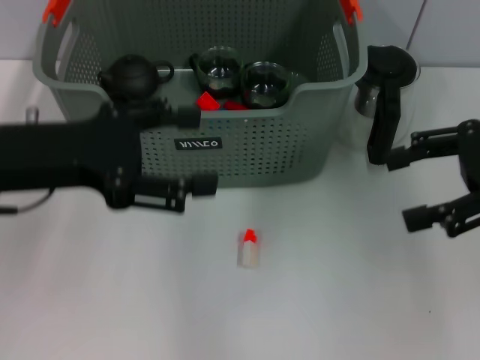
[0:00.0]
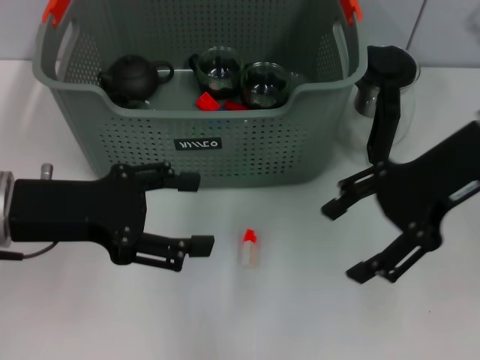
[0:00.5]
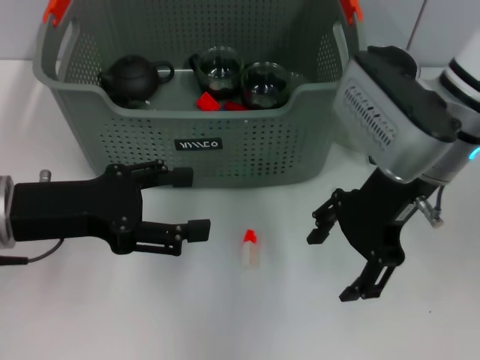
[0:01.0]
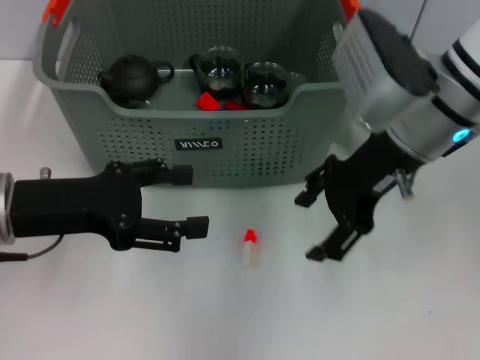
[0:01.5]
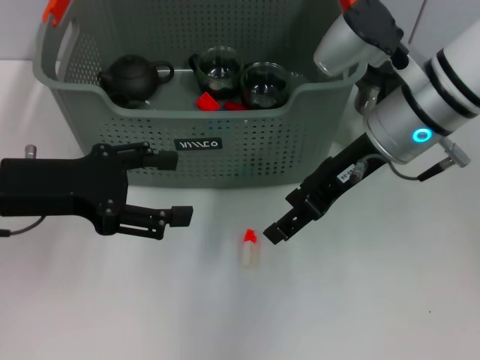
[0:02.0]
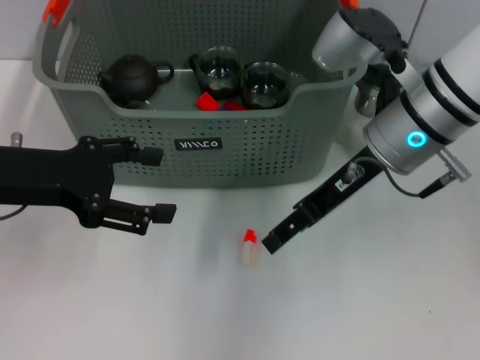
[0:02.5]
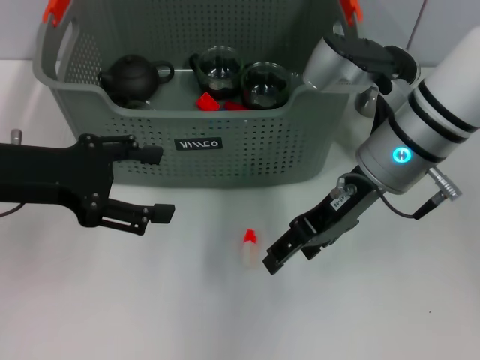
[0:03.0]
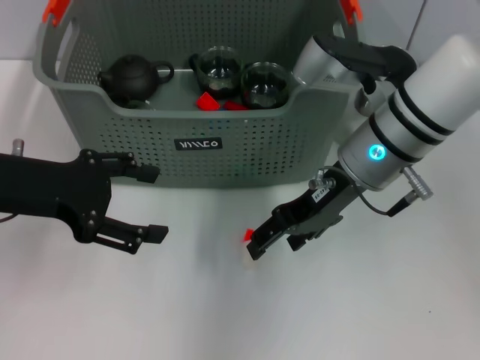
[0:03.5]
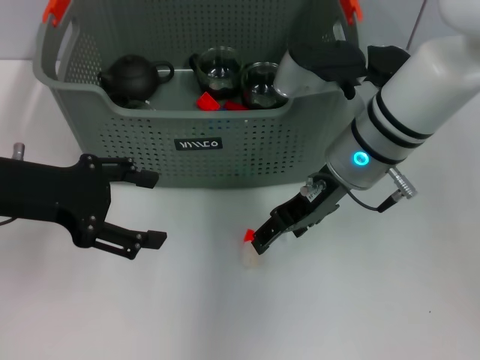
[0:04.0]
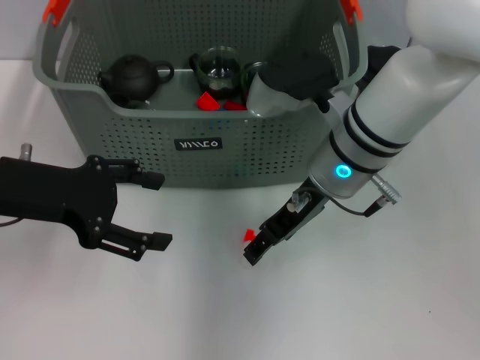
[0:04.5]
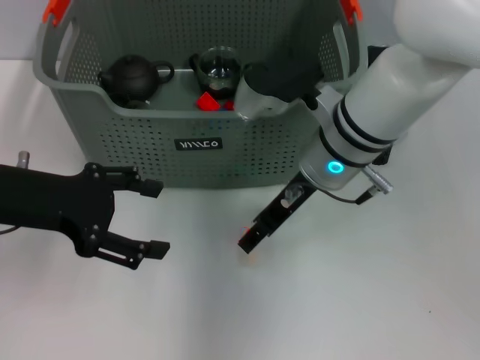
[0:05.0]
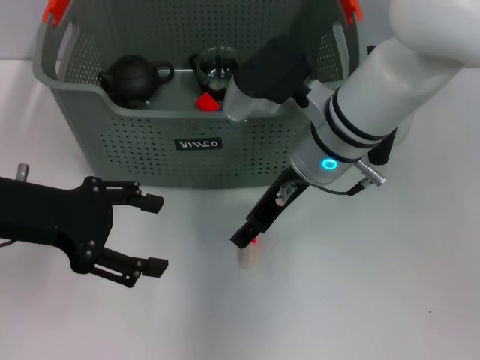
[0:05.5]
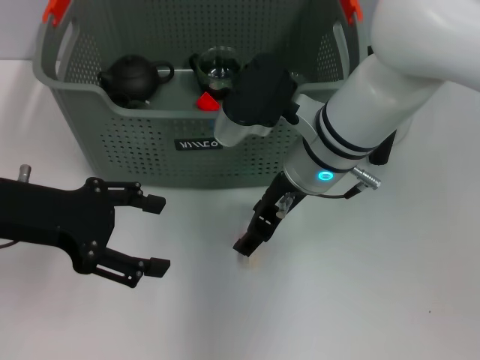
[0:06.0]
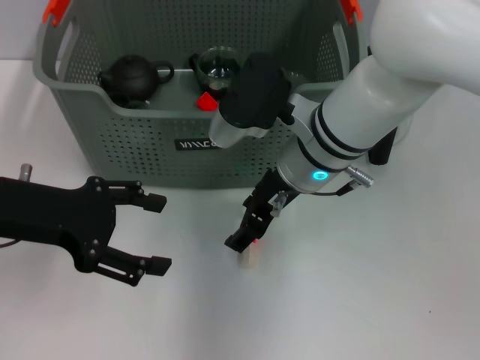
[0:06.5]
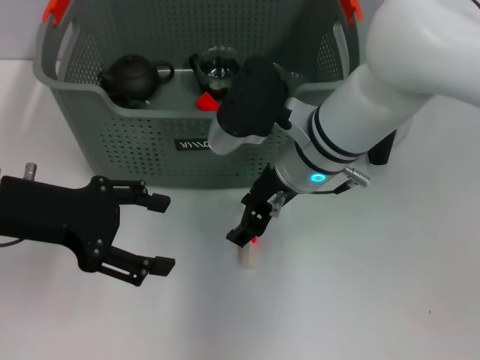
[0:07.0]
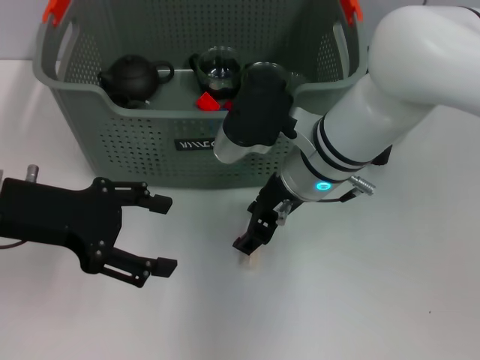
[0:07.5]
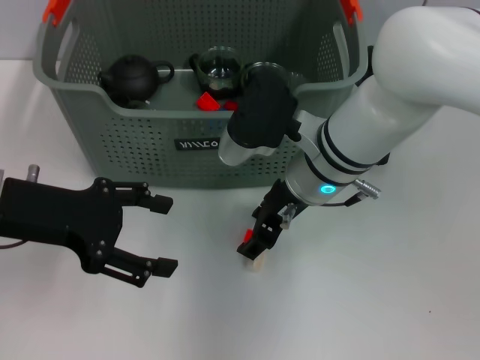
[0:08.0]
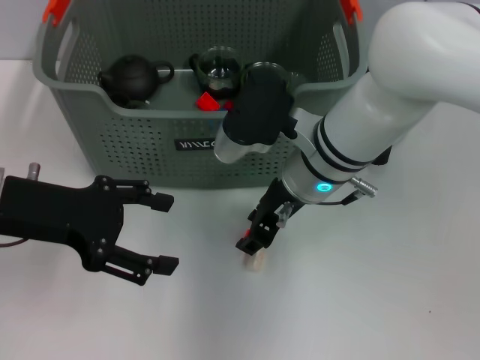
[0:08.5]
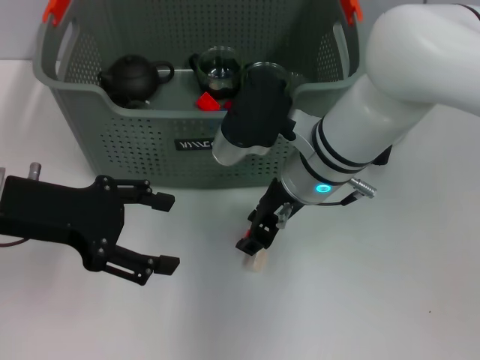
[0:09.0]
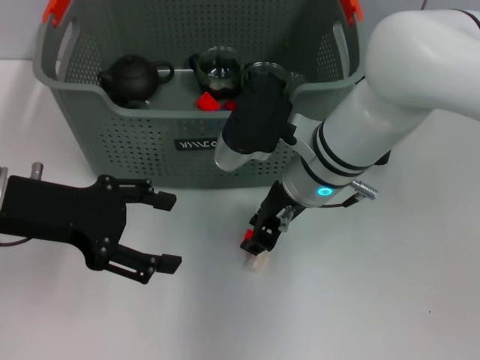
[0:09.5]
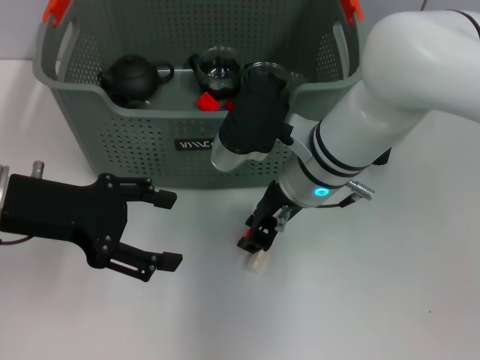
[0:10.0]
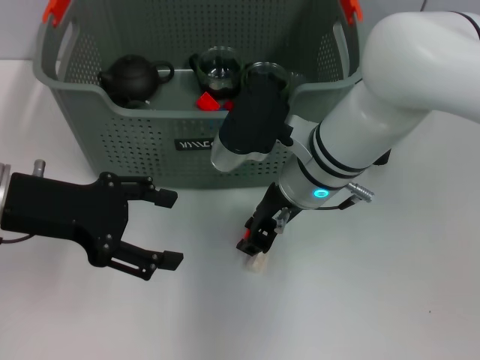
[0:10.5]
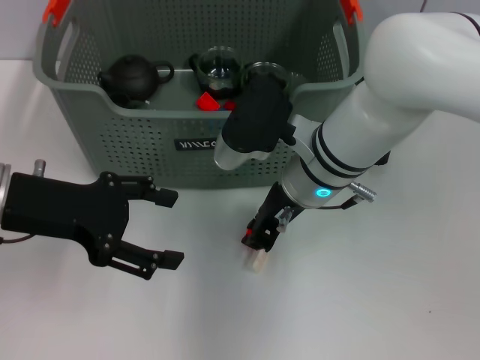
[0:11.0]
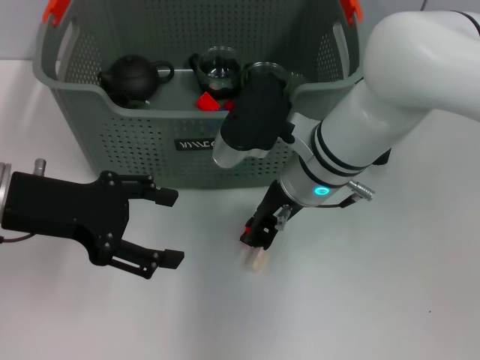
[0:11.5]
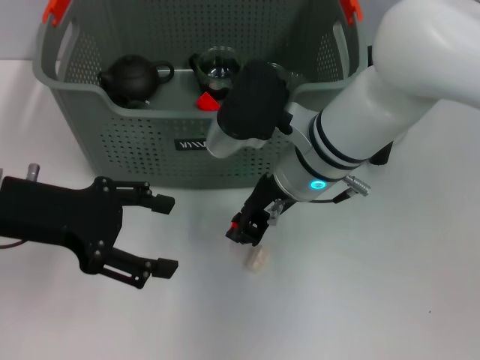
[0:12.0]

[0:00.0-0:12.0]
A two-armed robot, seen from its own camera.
Task of the whole recording: pick up the teacup on the table and place it into the storage bin, pick up the block on the table and place it into the storage bin.
Step, 0:00.0 to 0:11.0: Grasp the orange block with right gripper.
0:00.0 to 0:02.0: The right gripper moves to the left, approximately 15 cm.
0:02.0 to 0:04.0: The right gripper changes place by approximately 5 cm.
0:06.0 to 0:08.0: The grippers move only a little.
0:08.0 to 0:10.0: Neither gripper changes place.
0:10.0 to 0:12.0: The two grippers keep their place.
